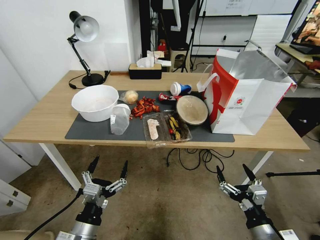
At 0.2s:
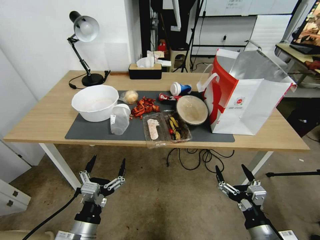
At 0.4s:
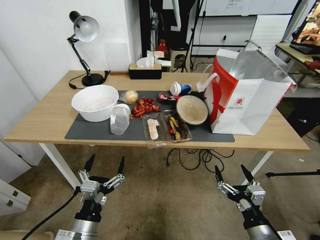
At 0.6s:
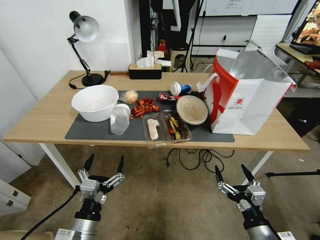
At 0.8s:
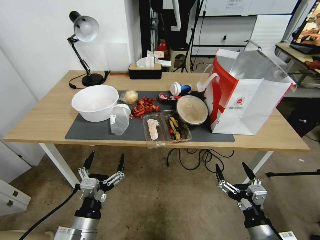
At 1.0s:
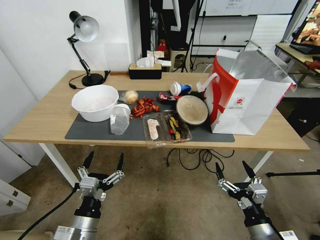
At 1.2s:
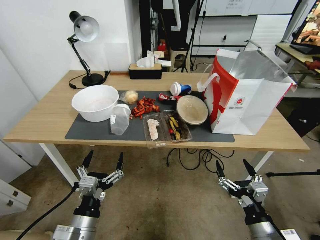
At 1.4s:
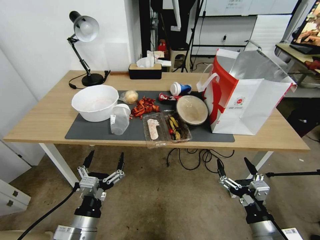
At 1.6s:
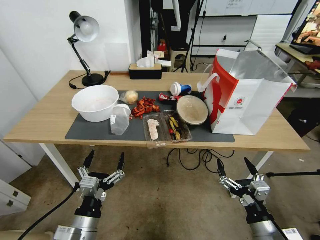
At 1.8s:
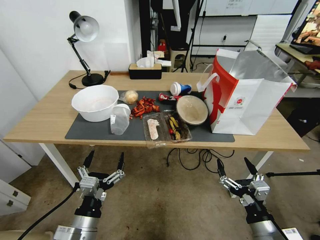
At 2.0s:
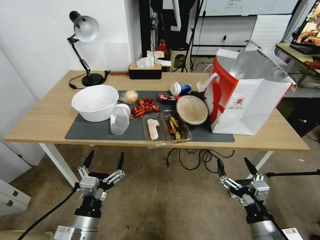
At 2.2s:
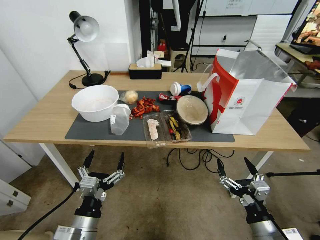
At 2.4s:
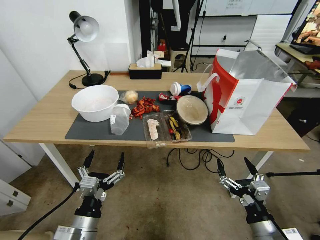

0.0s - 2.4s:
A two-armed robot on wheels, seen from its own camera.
Task of the whole recording: Pick up the food delivery bag from the floor and place it on the table.
0.0s - 1.2s: The grippers move only a little.
1.2s - 2.4s: The two grippers keep their place.

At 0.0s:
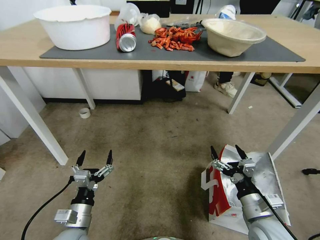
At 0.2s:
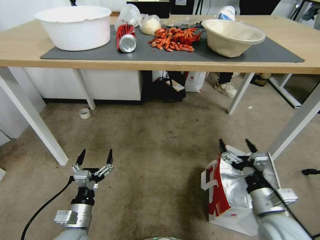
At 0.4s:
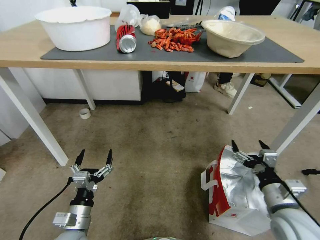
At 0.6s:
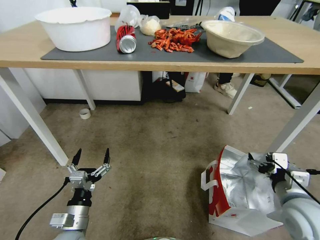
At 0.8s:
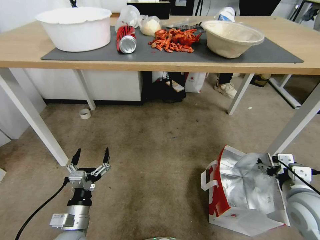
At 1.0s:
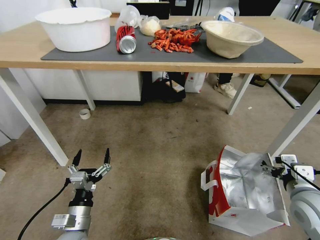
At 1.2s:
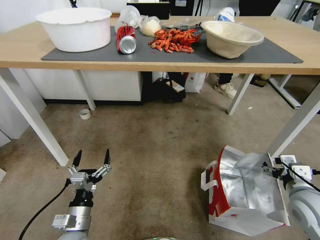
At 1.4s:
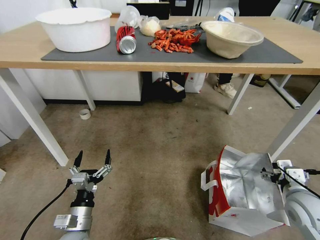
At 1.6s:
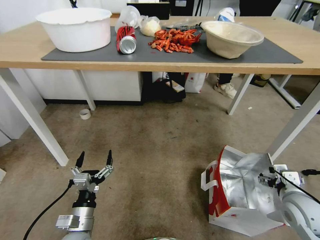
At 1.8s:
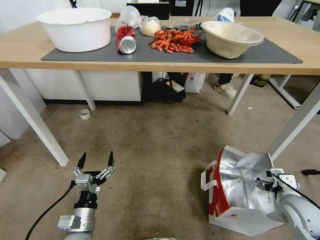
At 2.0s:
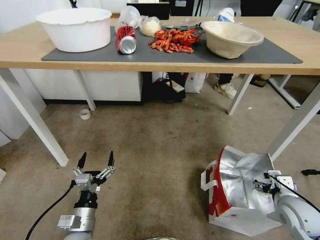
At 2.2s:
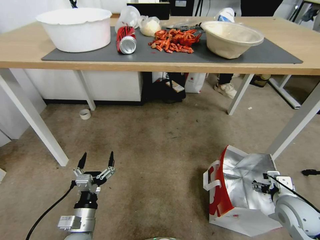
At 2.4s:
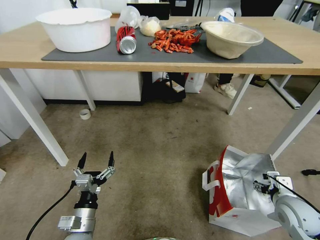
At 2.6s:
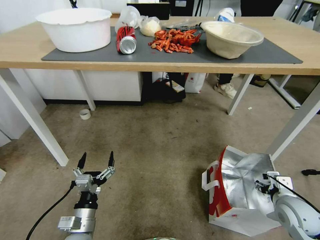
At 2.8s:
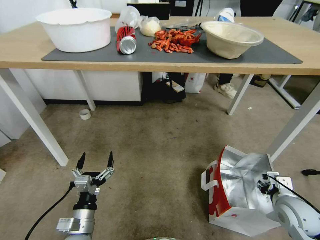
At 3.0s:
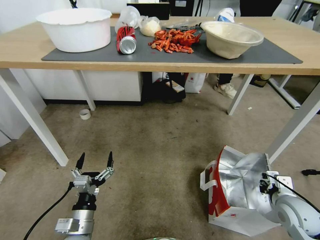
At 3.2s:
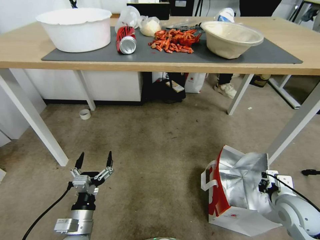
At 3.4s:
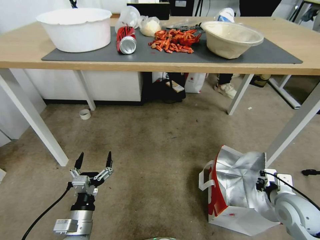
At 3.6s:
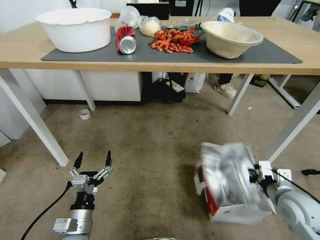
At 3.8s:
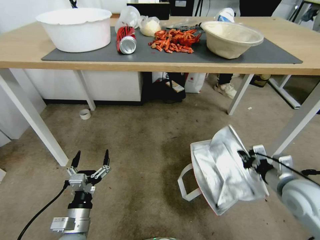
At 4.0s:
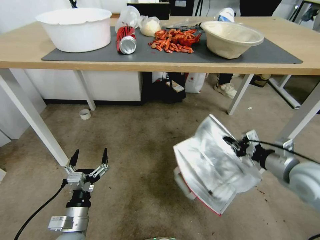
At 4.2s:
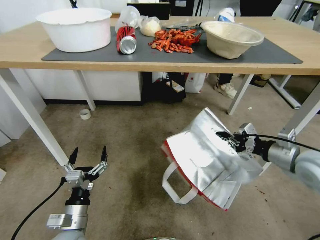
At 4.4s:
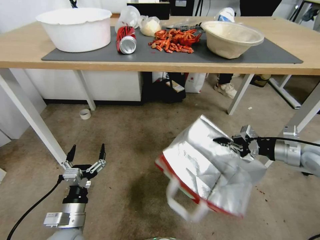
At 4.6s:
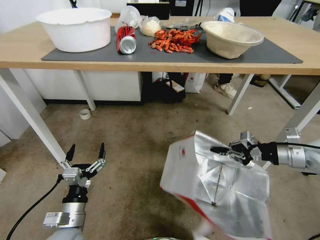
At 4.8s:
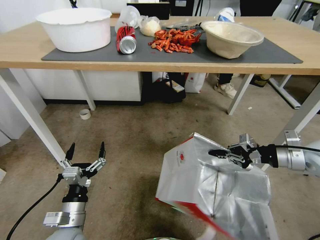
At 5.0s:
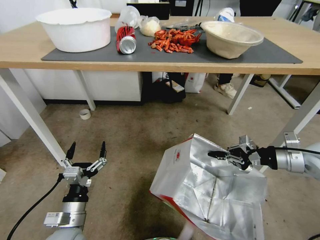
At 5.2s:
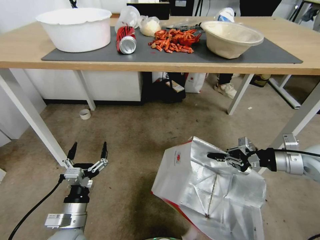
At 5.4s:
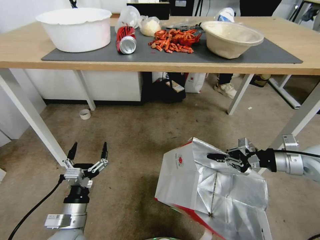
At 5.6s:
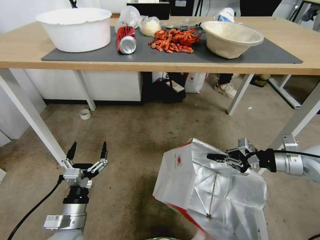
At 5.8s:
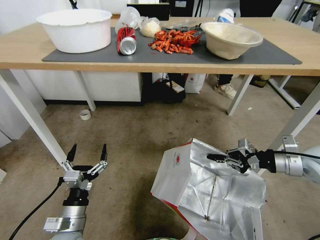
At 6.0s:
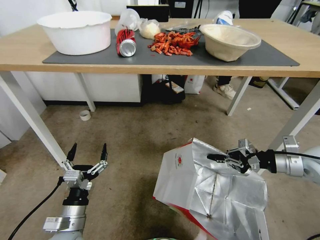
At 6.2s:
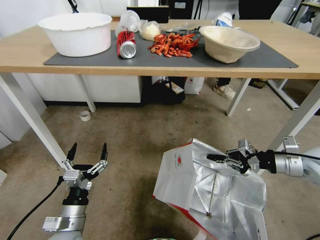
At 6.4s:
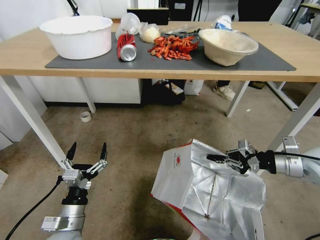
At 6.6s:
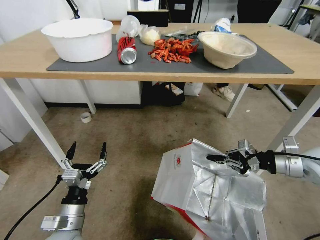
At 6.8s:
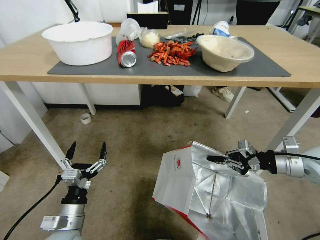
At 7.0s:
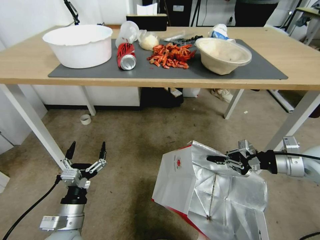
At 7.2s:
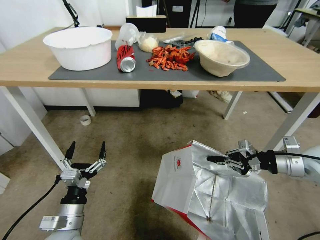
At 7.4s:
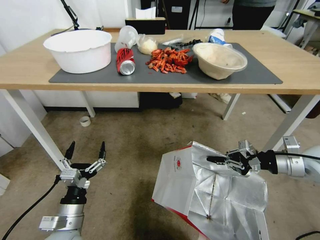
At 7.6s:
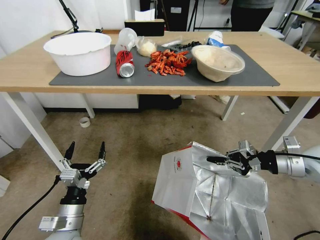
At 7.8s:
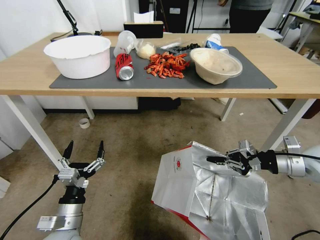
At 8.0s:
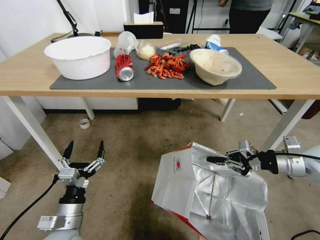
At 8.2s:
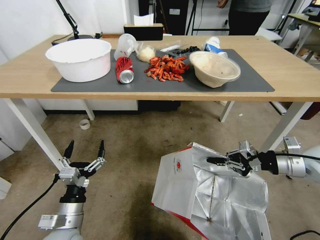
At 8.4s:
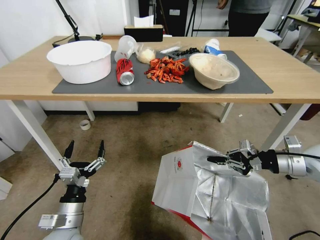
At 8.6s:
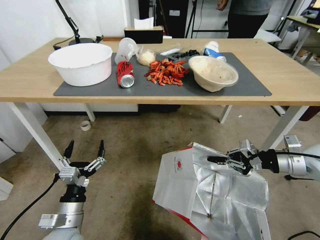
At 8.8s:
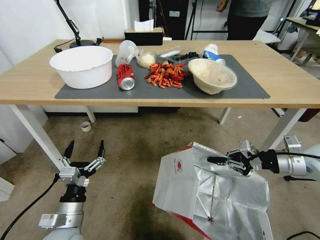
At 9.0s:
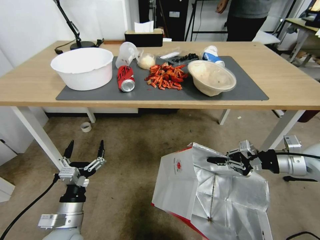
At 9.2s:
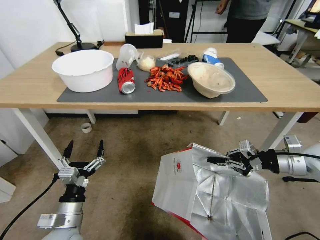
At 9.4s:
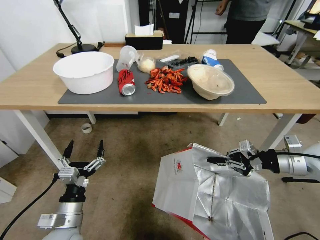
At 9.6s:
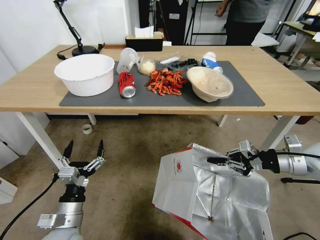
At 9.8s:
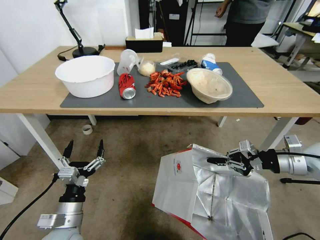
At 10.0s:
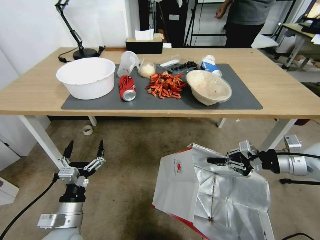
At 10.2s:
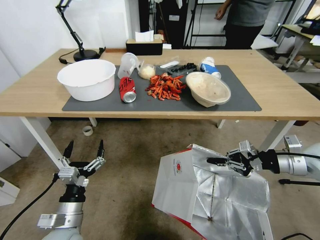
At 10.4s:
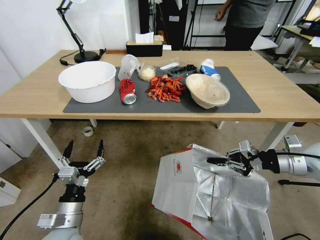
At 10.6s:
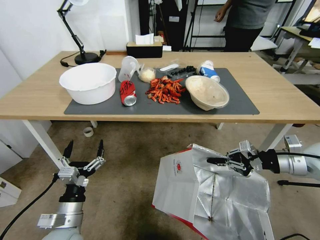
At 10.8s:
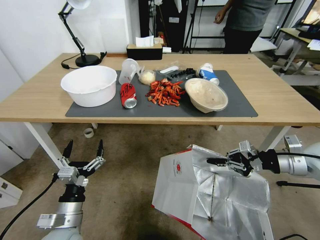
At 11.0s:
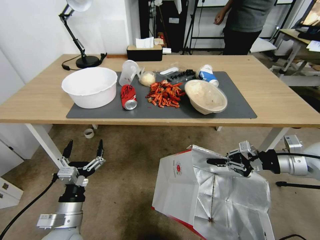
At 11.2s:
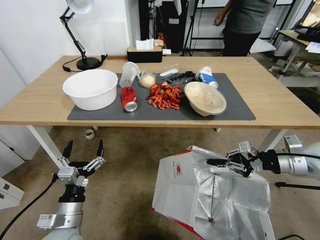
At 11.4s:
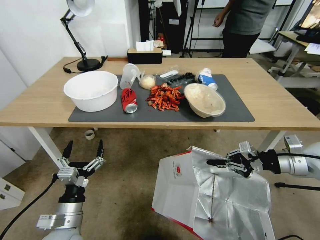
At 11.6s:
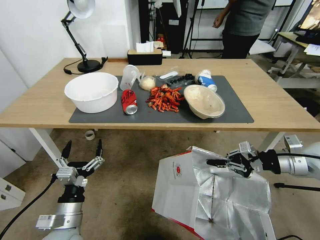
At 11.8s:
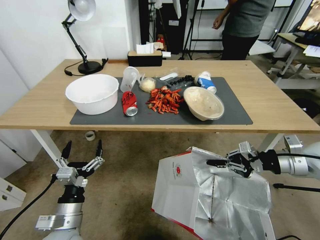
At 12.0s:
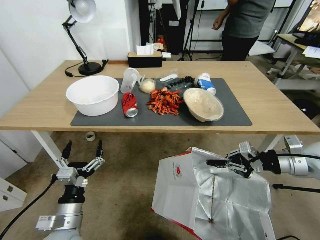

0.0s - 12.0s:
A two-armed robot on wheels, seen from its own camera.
Task of the whole recording: Pick up the food delivery bag from the floor and place it on the table.
0.0s - 1.6s: The right gripper shifts approximately 10 cm to the right and forward.
1.6s - 3.0s: The right gripper closes.
3.0s - 4.4s: The right gripper is displaced upward and forward by about 20 cm.

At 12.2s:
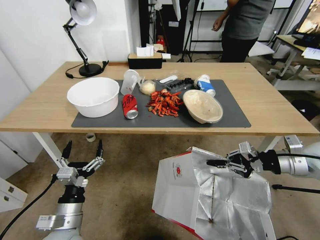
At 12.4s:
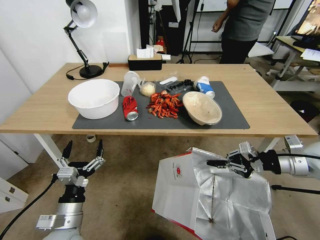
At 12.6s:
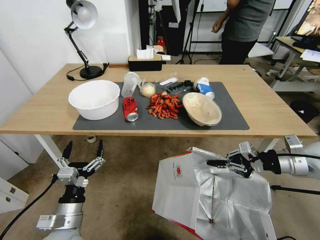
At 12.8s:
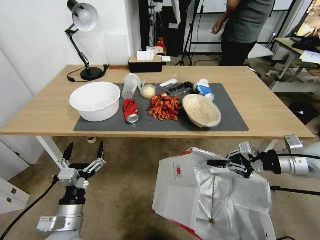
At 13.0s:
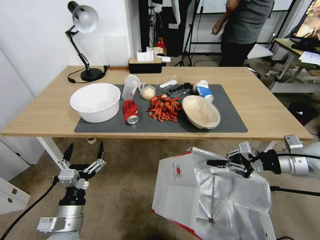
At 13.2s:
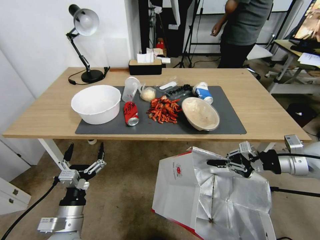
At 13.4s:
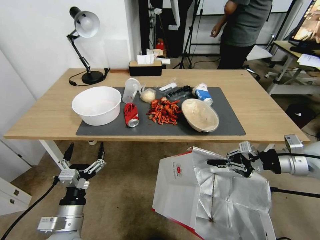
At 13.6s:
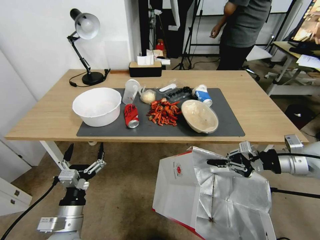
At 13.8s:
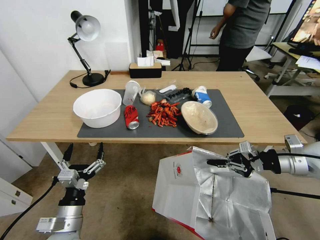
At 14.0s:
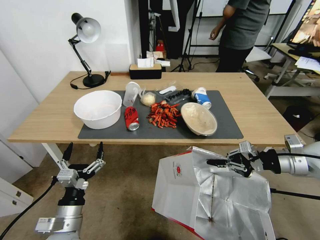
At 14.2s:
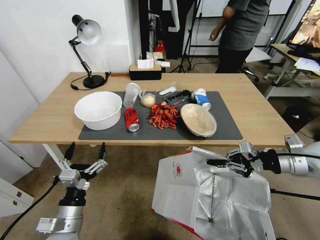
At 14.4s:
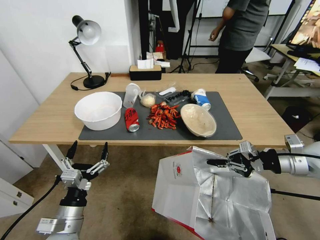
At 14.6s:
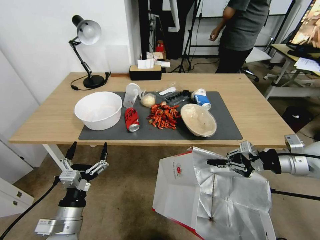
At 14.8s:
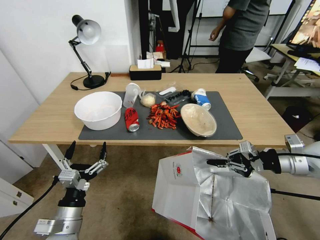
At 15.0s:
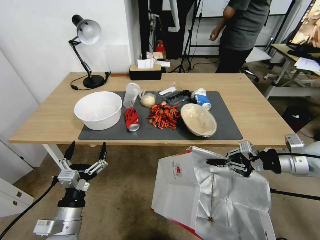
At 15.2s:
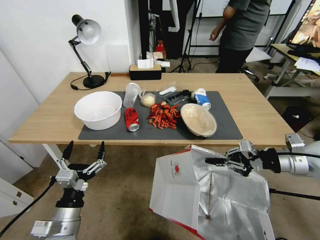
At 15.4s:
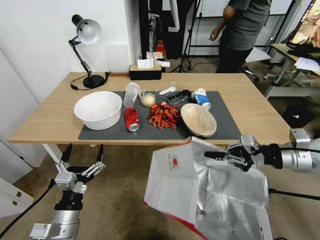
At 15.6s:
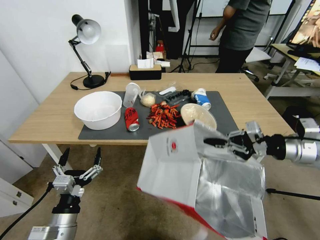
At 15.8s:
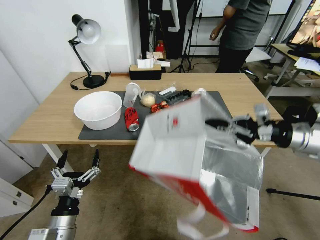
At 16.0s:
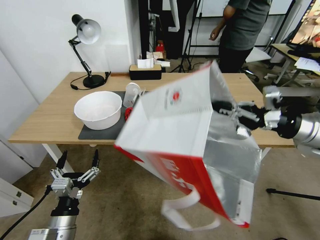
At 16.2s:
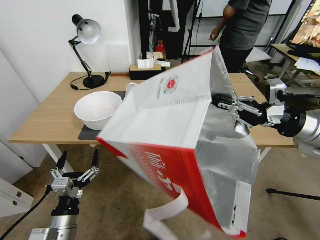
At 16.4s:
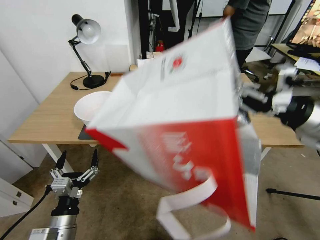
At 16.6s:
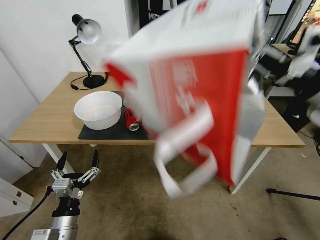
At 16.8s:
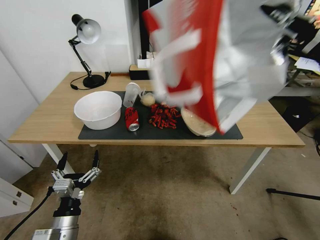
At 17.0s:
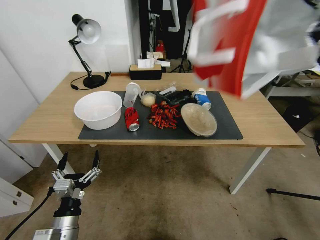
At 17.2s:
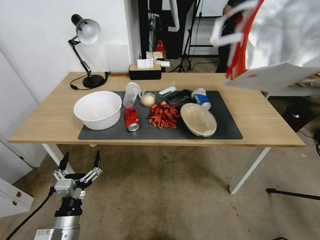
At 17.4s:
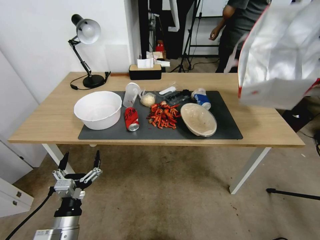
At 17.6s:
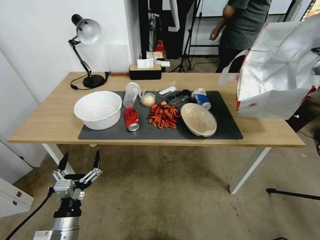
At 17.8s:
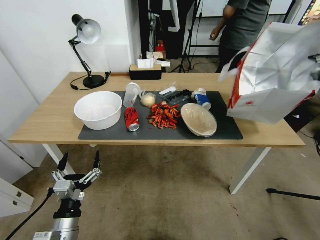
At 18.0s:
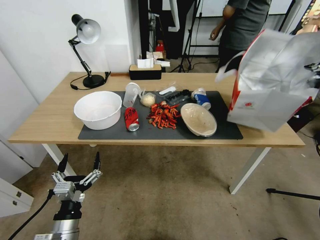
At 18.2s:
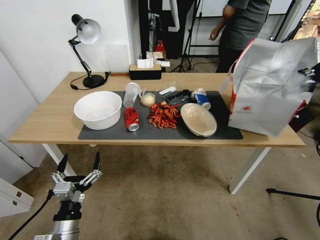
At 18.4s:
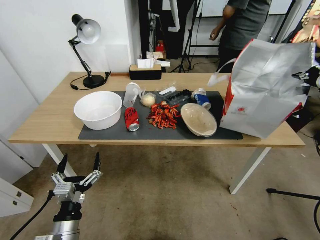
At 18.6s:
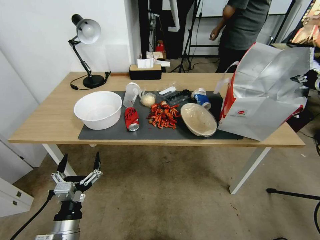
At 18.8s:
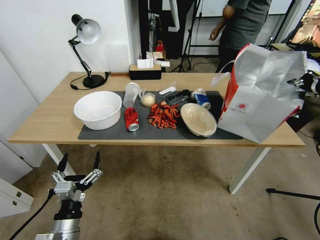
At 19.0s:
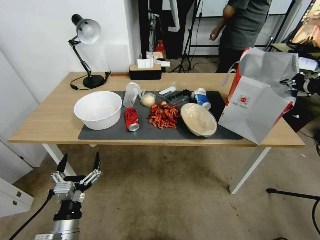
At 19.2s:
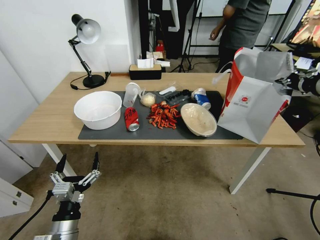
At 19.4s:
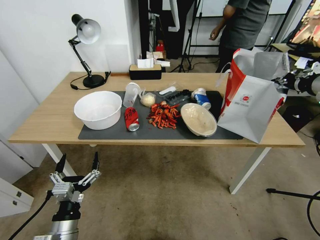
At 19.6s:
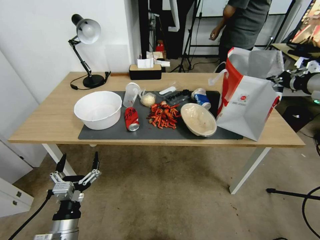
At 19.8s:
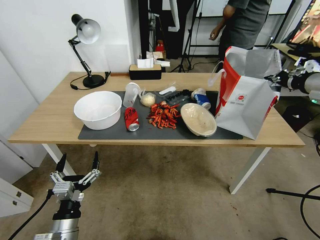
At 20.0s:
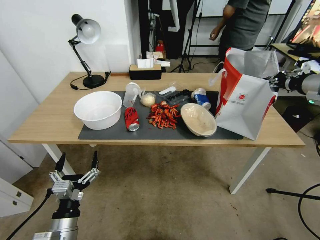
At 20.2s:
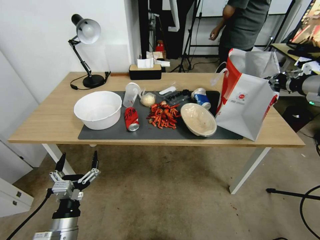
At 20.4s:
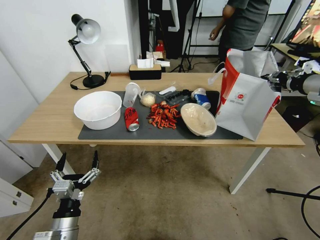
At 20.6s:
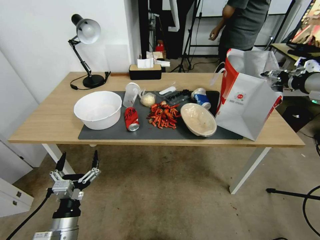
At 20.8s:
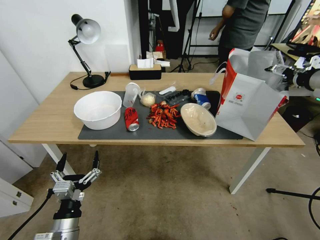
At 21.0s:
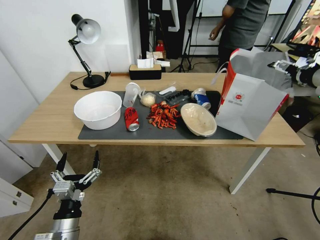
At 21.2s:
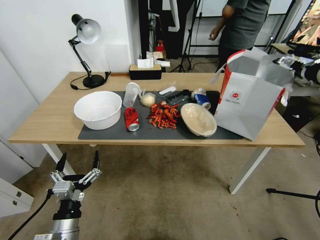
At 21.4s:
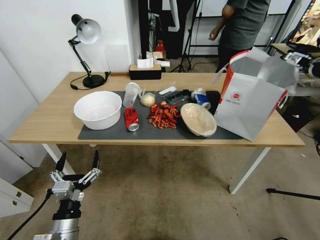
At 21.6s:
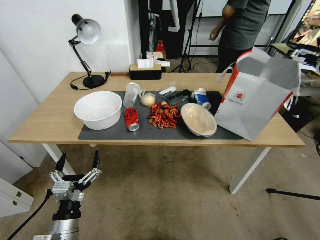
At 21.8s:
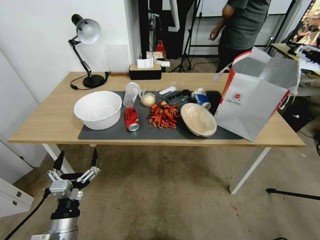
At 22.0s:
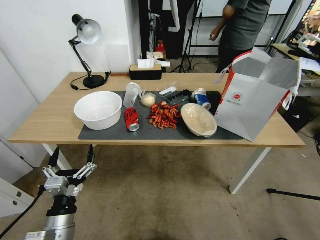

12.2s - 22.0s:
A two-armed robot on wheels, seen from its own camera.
Task of the whole recording: Pick up the food delivery bag from the floor and place it on the table.
13.6s - 15.0s: There are only small adjustments of the grippers.
15.0s - 16.4s: The right gripper travels upward by roughly 15 cm.
16.4s - 17.8s: The right gripper moves to the right, upward and forward, some 15 cm.
17.8s - 19.2s: The right gripper ends up approximately 5 cm from where it was.
19.2s - 20.6s: The right gripper opens up.
20.6s - 22.0s: The right gripper travels backward by roughly 5 cm, and opens up.
